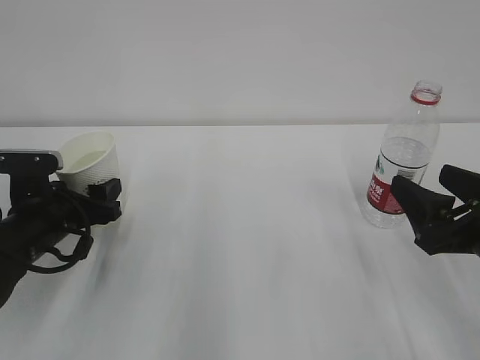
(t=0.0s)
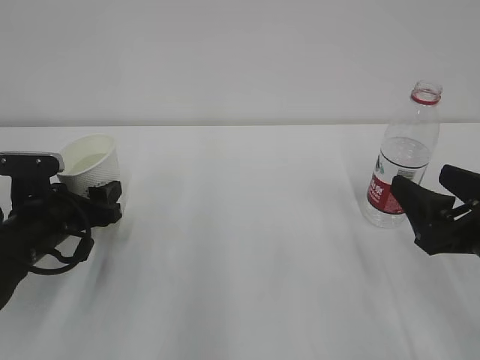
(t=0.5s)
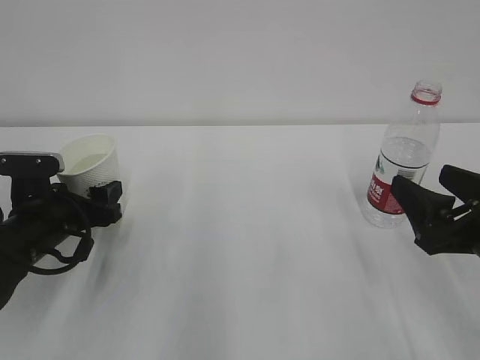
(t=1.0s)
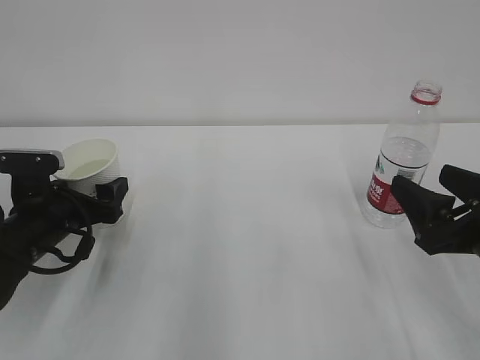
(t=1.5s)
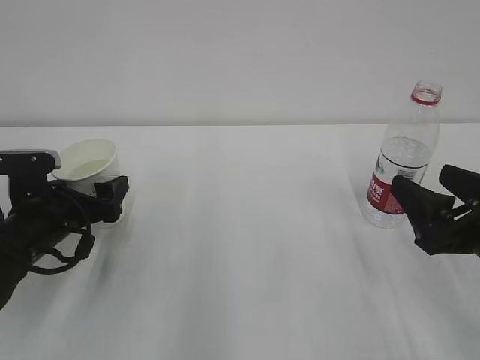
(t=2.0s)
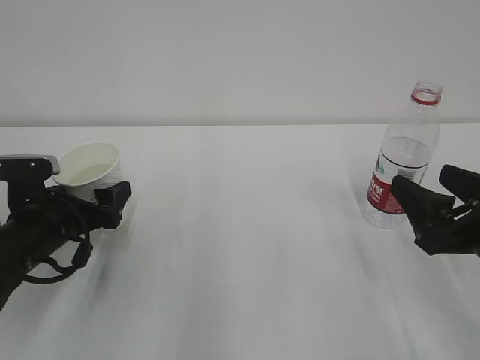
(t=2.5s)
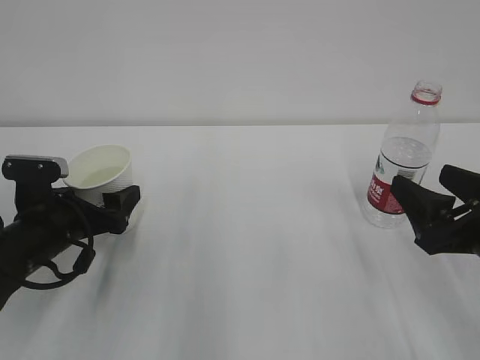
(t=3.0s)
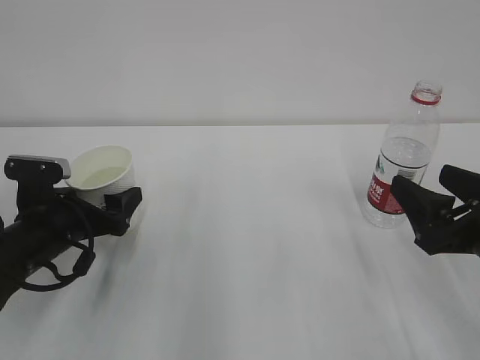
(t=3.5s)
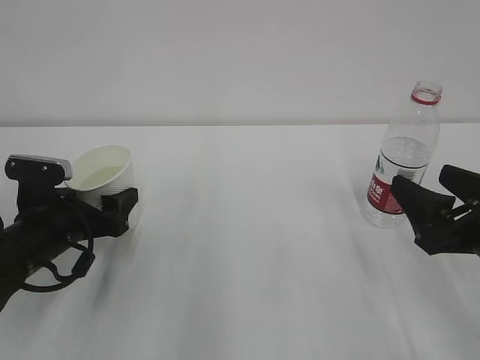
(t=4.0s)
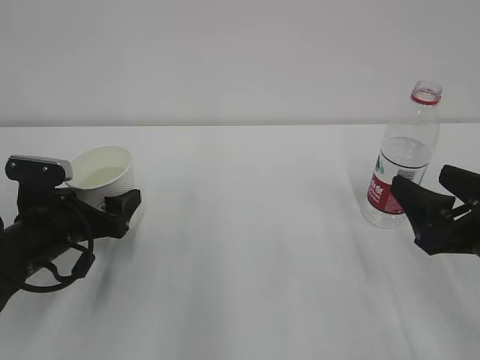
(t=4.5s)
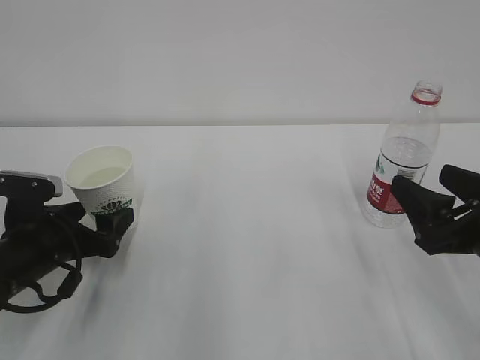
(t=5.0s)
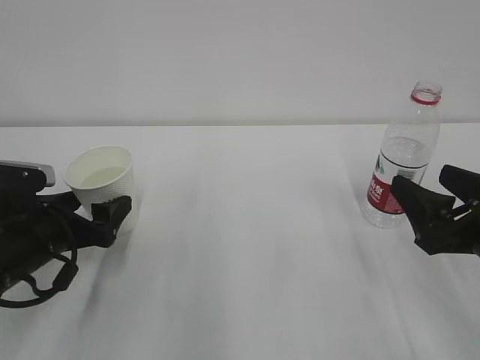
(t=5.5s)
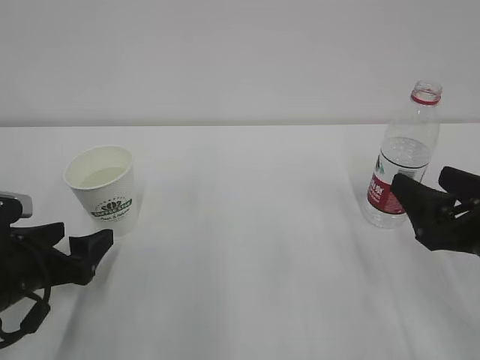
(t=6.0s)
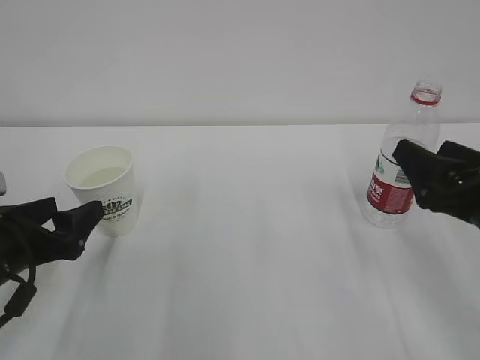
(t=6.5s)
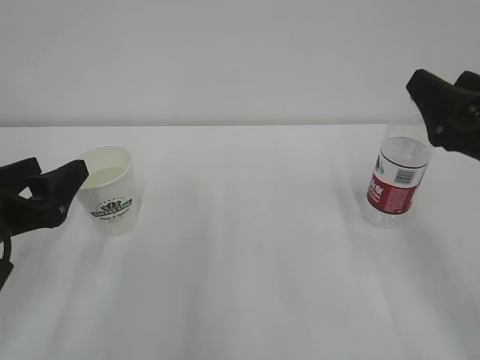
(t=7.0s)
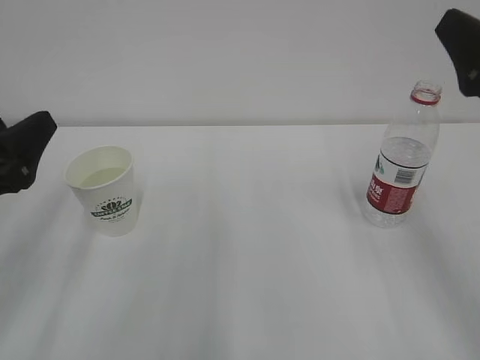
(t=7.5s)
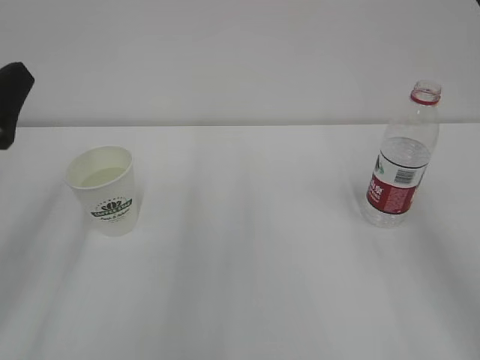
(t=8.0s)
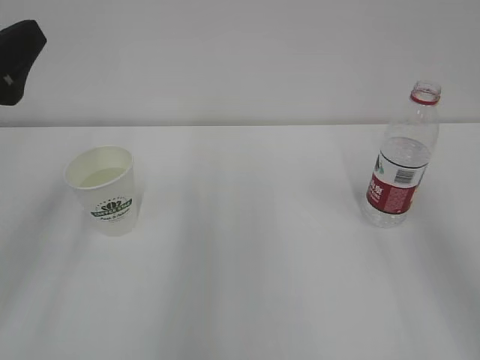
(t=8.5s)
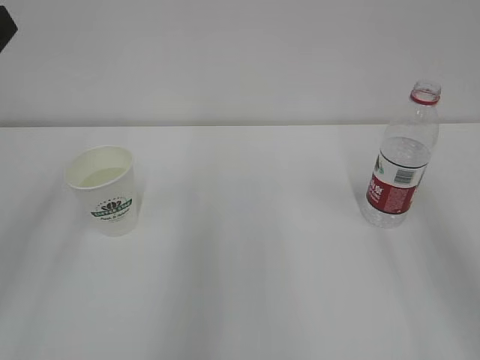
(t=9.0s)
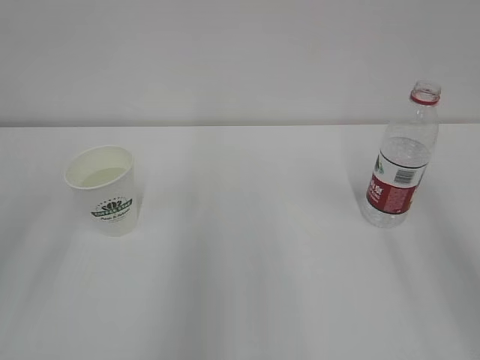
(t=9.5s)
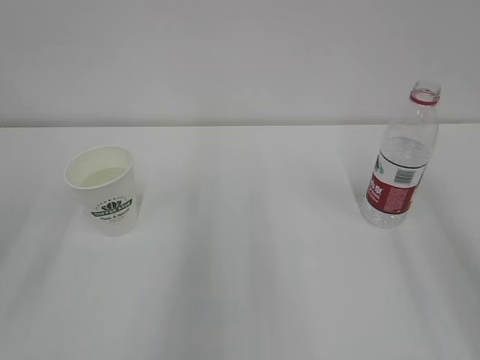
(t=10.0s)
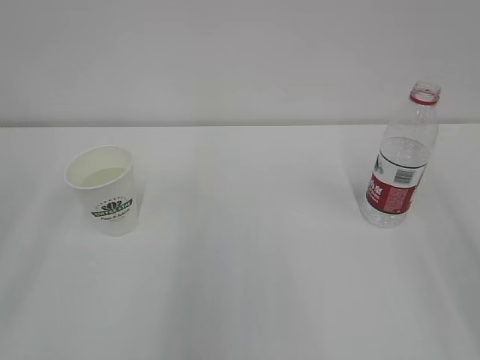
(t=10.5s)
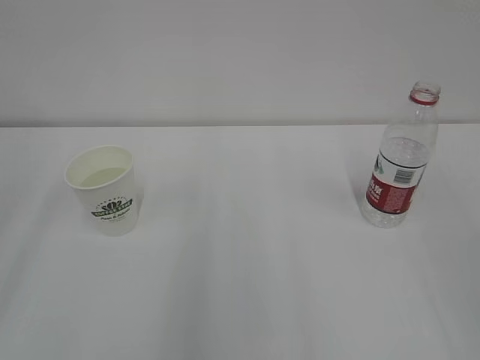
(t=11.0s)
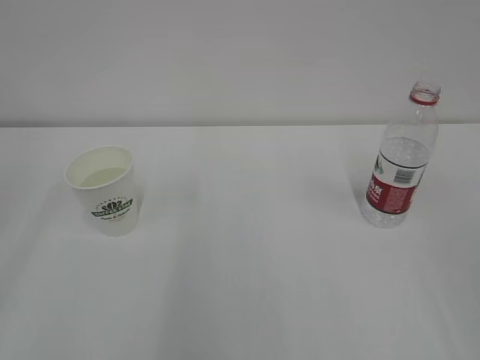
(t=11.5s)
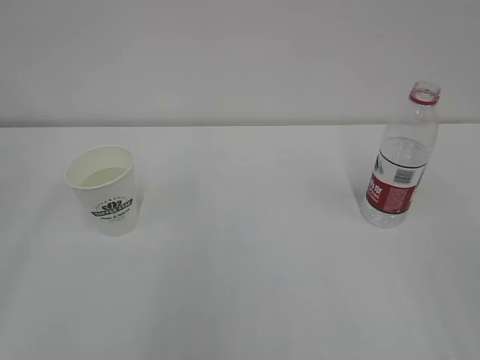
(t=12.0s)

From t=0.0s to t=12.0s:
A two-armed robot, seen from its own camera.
From t=0.0s to t=2.0s: The left gripper opens.
From t=2.0s to t=4.0s: The left gripper closes up.
From t=4.0s to t=6.0s: The left gripper goes some 5 cm backward.
From t=6.0s to t=8.0s: Both grippers move upward, roughly 15 cm.
From t=8.0s to t=10.0s: The left gripper moves upward and backward, approximately 10 cm.

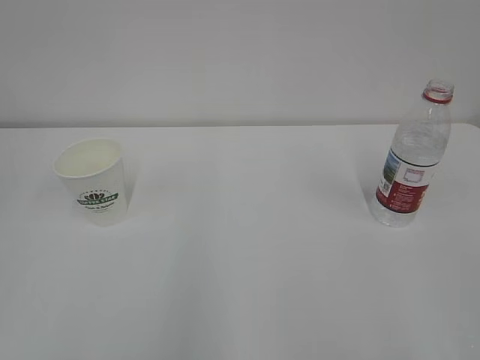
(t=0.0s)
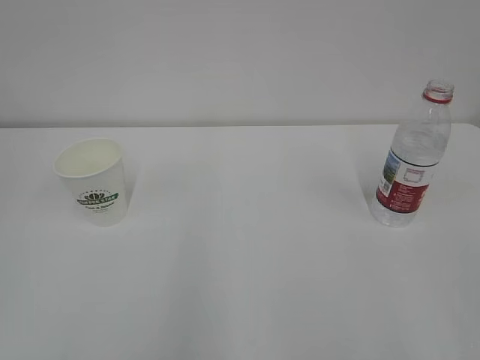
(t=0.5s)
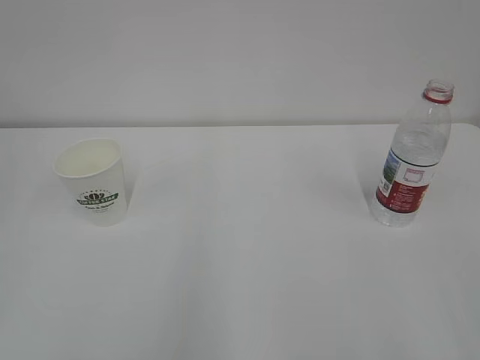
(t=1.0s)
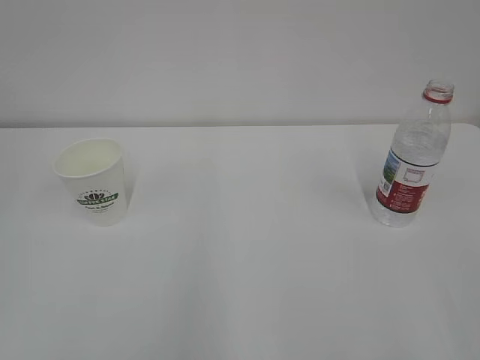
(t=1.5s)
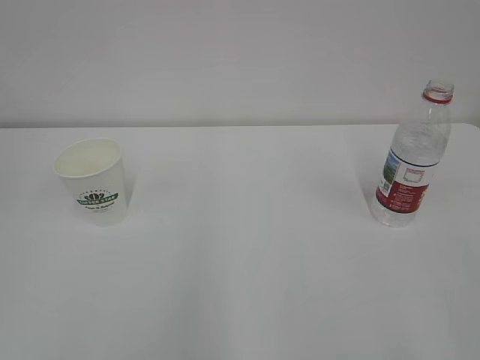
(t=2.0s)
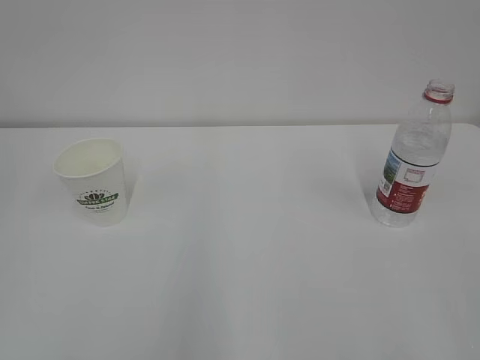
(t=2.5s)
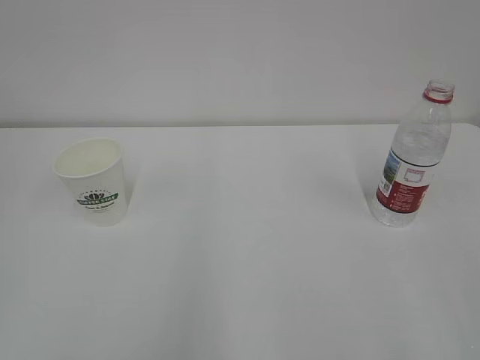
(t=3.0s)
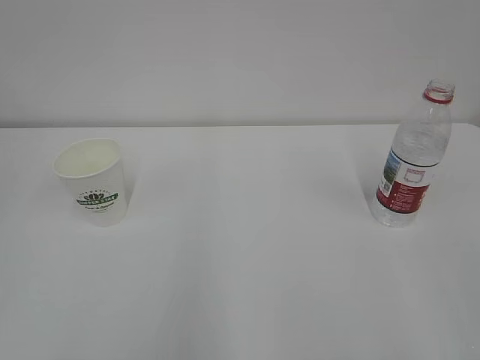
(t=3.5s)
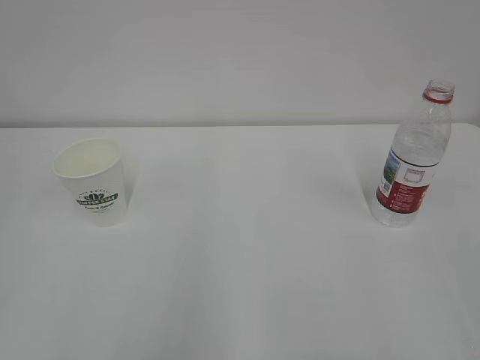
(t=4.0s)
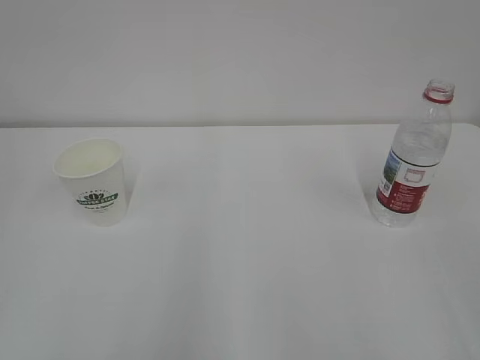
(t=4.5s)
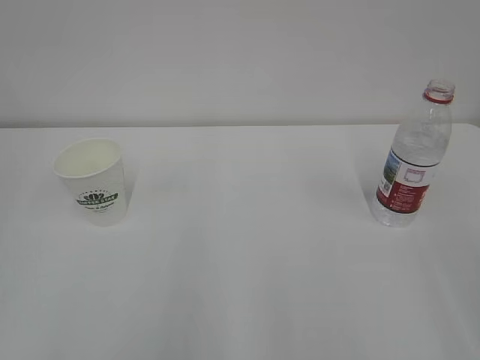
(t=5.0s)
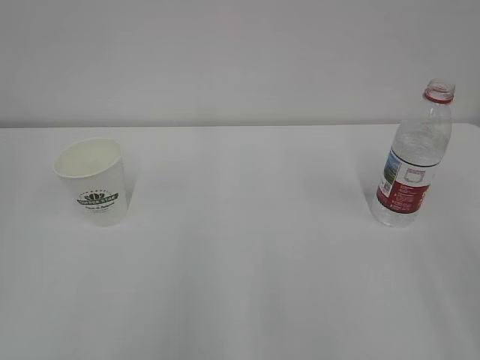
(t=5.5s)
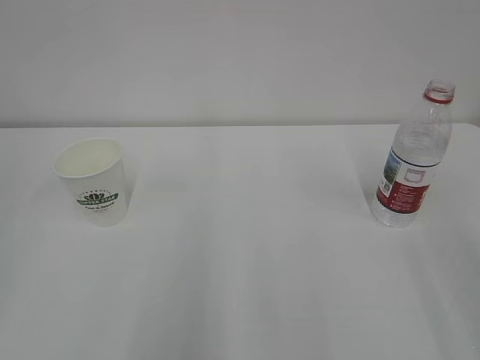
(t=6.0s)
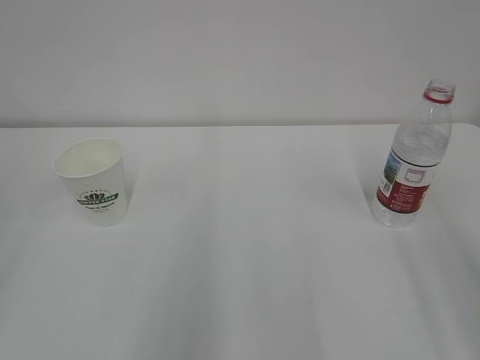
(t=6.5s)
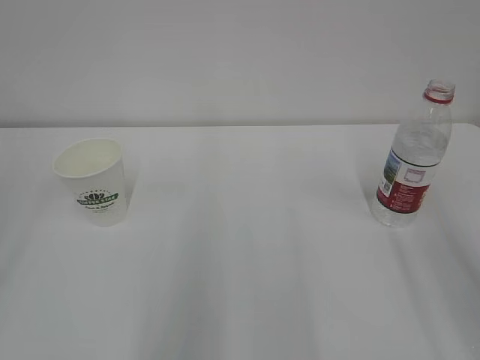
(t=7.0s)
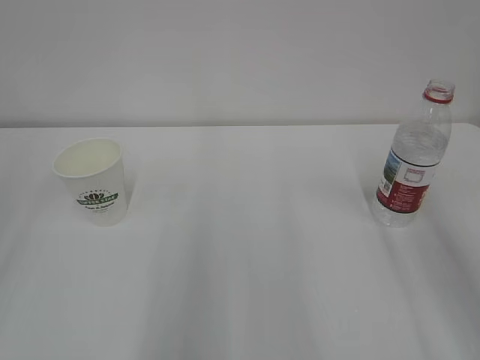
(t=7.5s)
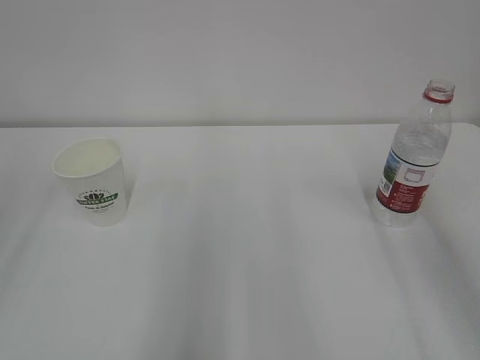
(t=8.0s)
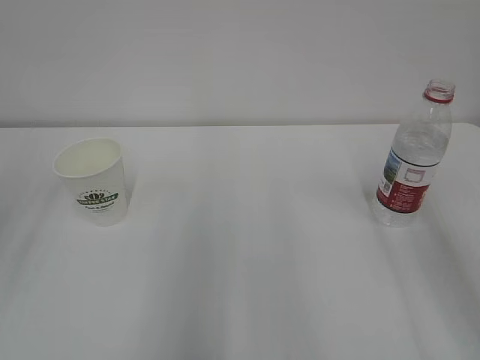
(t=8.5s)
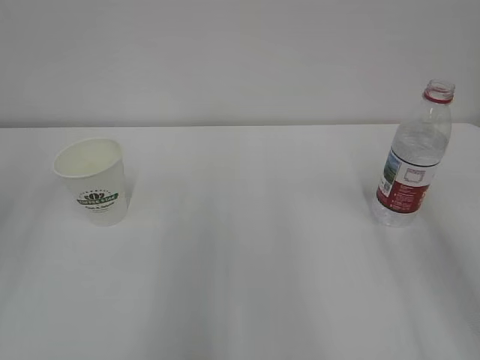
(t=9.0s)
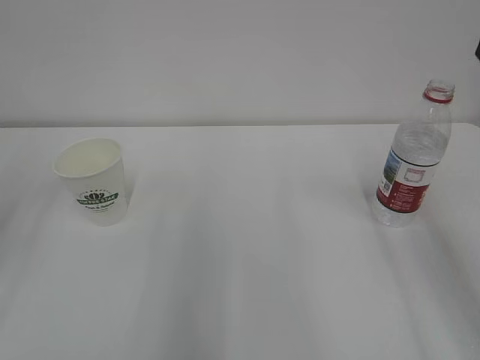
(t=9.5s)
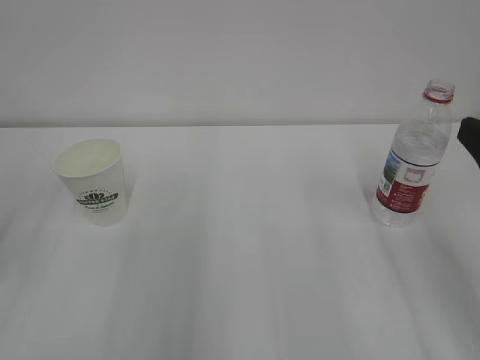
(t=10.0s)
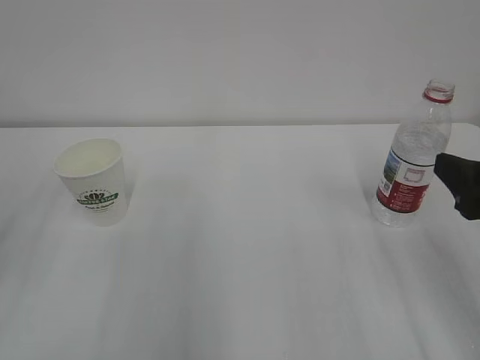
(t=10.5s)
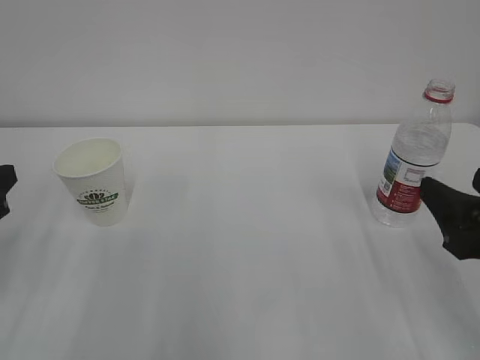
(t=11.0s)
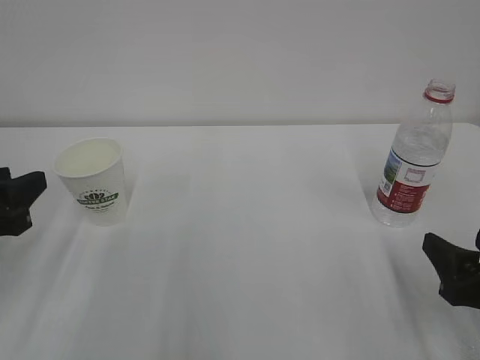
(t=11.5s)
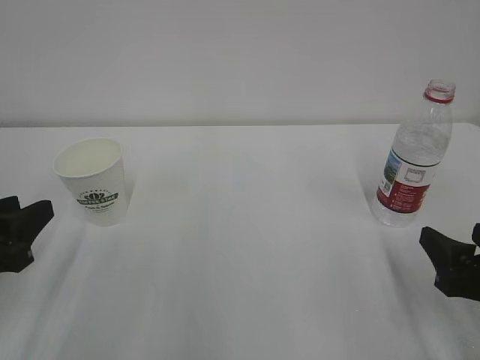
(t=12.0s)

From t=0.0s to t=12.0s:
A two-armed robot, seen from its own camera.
From t=10.0s to t=12.0s: Both grippers move downward, some 10 cm.

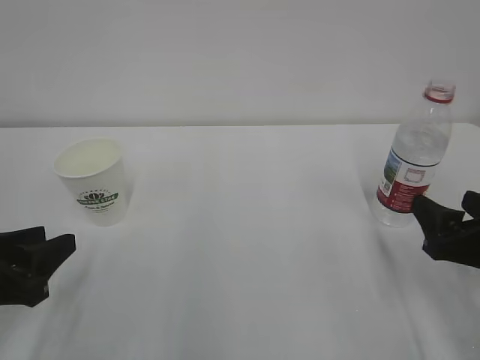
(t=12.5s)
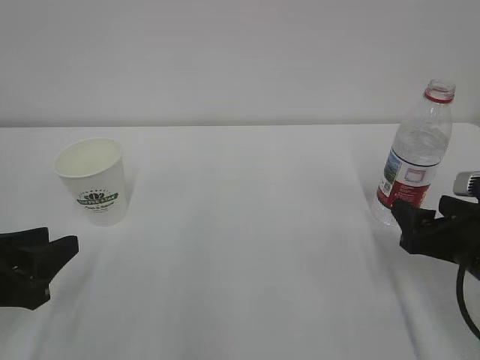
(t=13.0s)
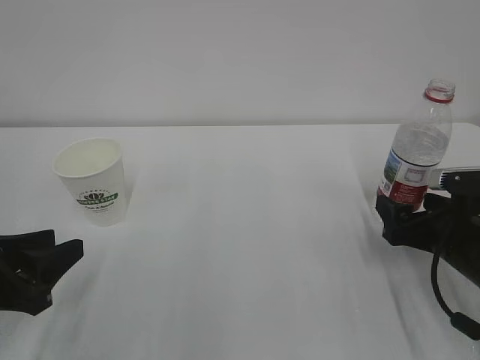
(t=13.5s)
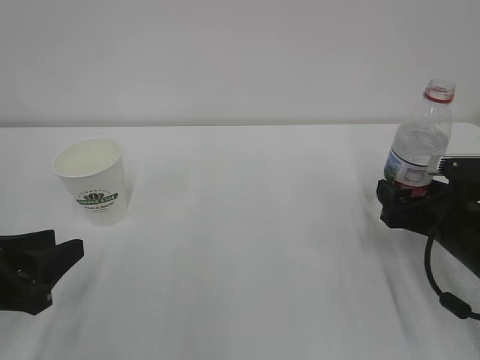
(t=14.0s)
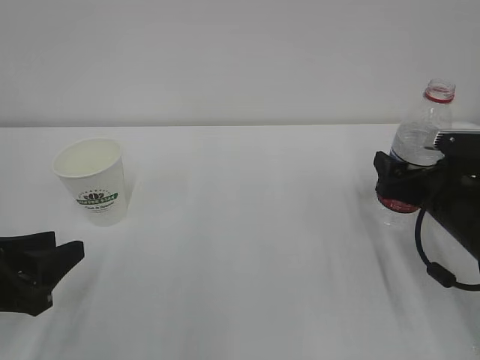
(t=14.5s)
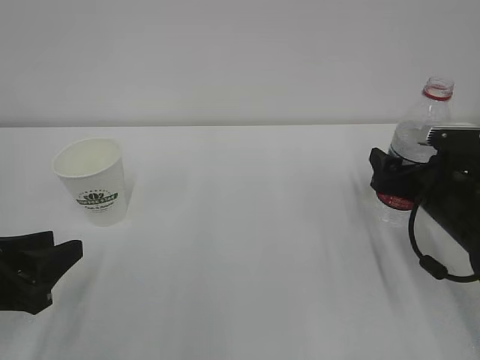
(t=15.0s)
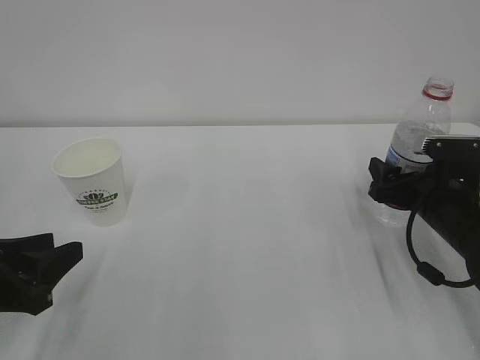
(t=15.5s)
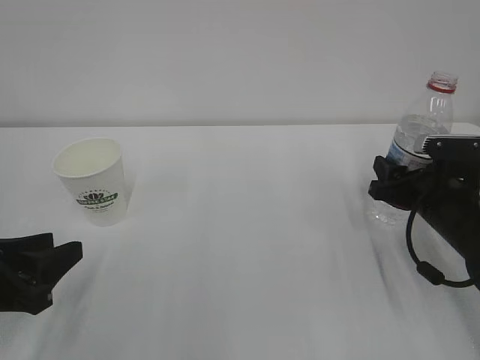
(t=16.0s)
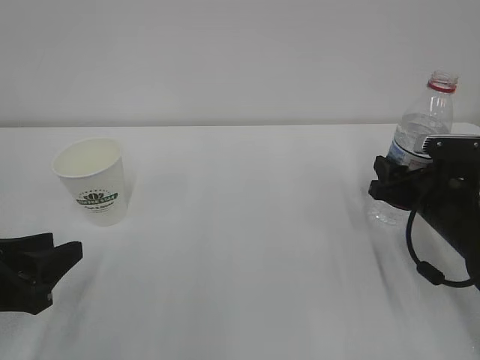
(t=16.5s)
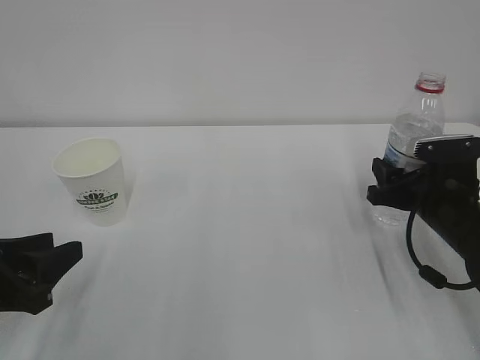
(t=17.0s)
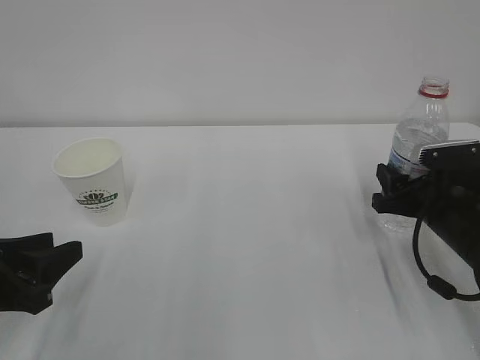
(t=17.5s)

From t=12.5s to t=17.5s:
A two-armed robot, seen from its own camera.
From t=12.5s to t=15.0s: The right gripper moves forward, some 10 cm.
From t=15.0s to t=17.5s: The right gripper closes its fingers.
